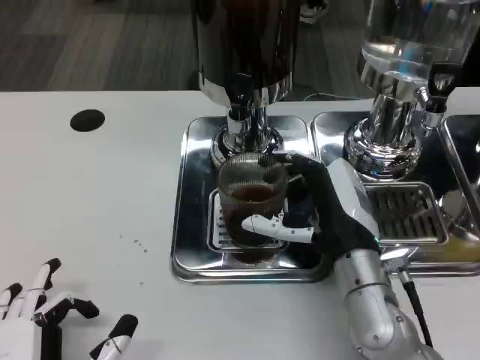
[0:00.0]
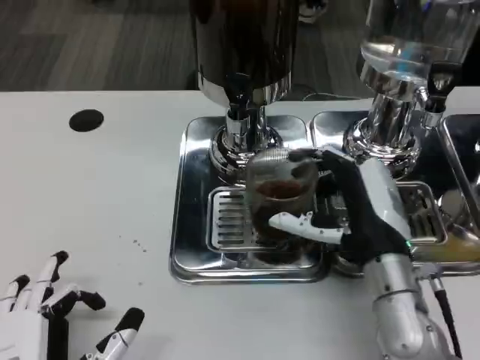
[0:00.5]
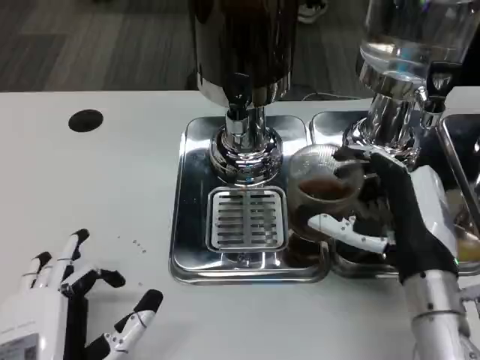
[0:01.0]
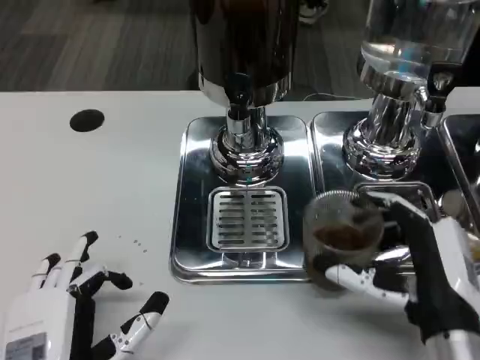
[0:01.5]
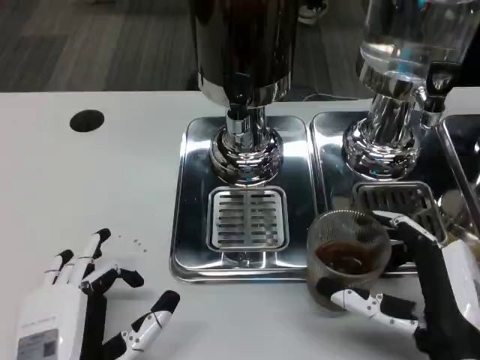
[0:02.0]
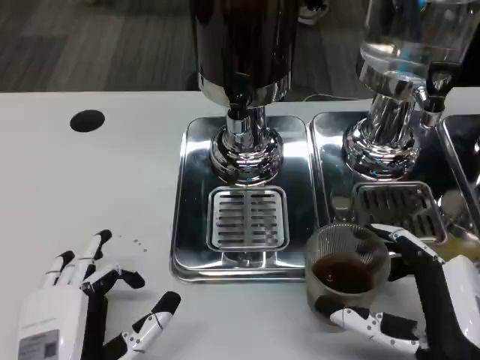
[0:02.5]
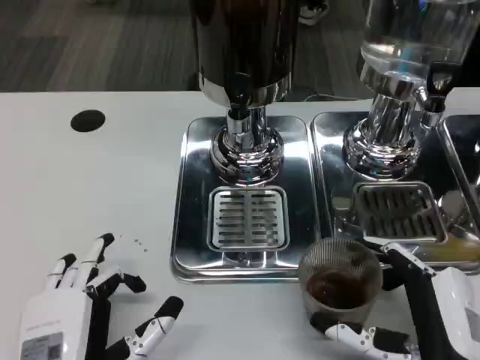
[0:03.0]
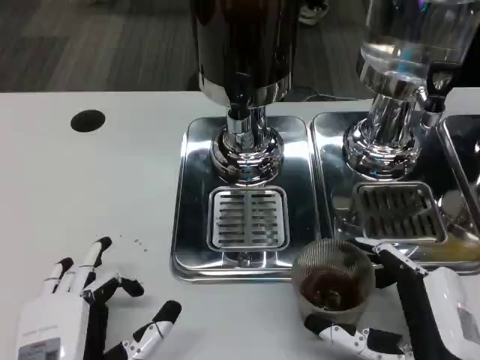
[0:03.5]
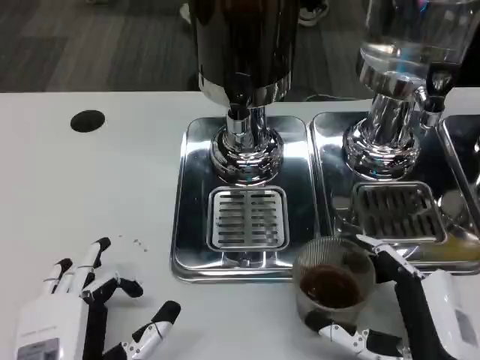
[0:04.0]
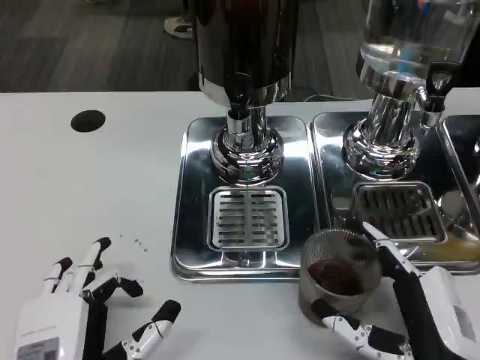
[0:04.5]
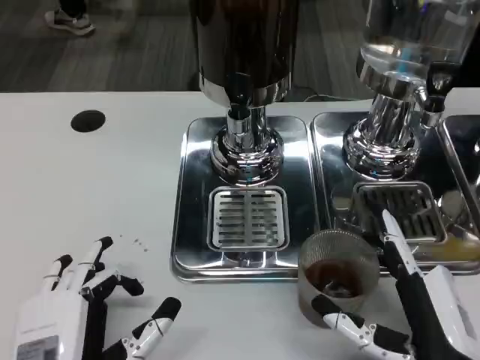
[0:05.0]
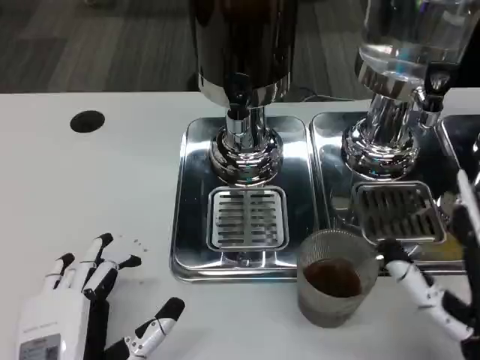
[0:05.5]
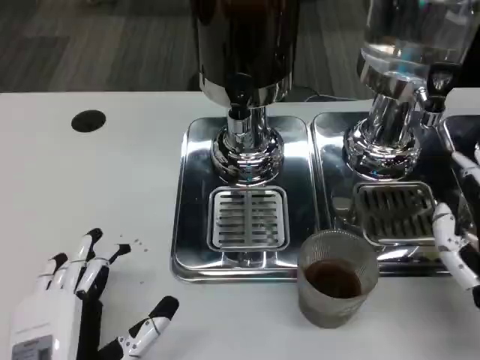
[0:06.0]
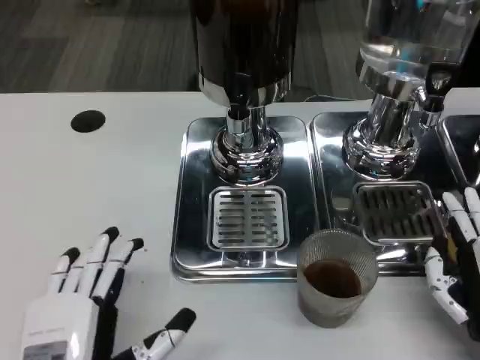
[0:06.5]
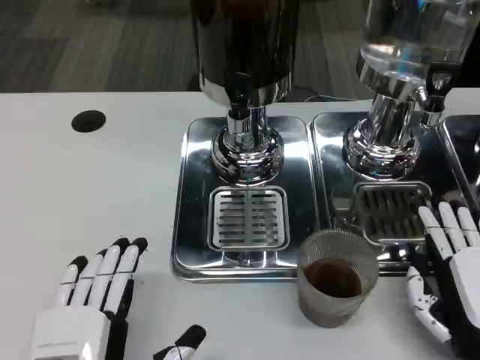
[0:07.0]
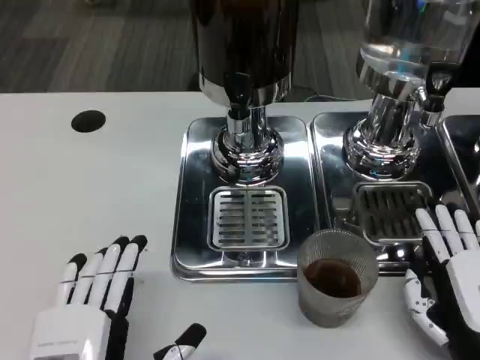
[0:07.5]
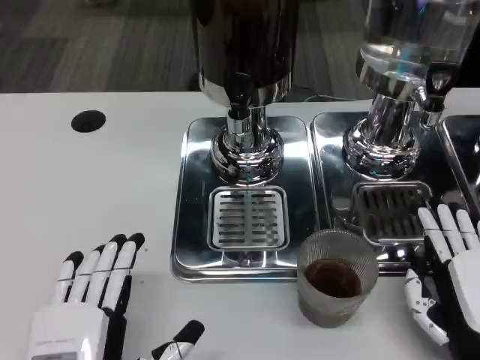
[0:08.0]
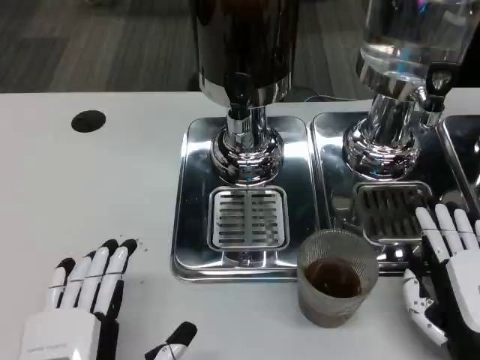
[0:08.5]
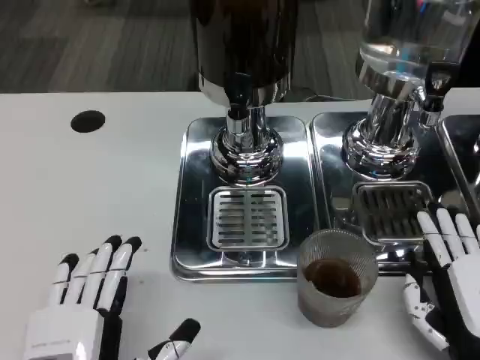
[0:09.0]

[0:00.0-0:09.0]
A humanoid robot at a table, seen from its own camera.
Task of the whole recording: Grasp the cup under the faucet to collect the drink, then remove the cup.
0:00.0 to 0:02.0: The right hand shifts roughly 15 cm backward and to the right.
0:02.0 to 0:04.5: The hands move only a little.
0:04.5 to 0:07.0: The right hand travels to the right by approximately 5 cm.
0:07.0 to 0:09.0: Both hands stay about where they are.

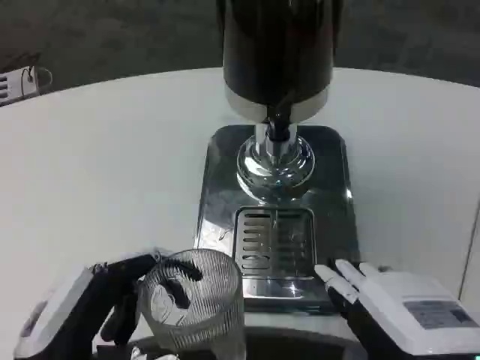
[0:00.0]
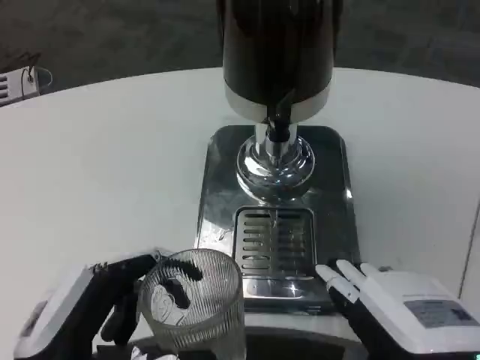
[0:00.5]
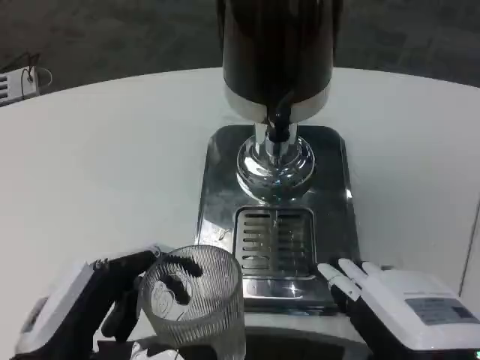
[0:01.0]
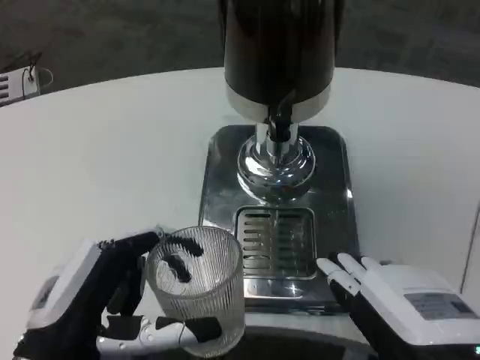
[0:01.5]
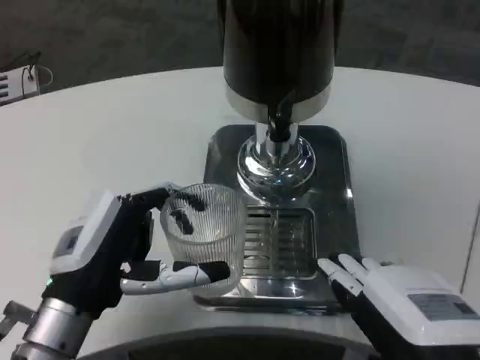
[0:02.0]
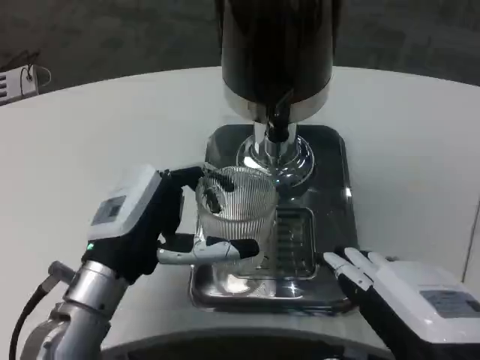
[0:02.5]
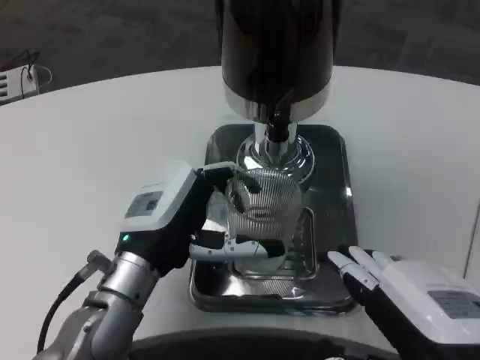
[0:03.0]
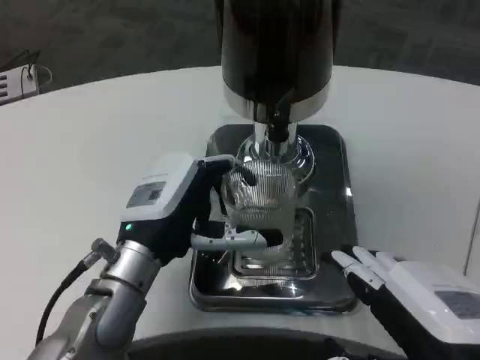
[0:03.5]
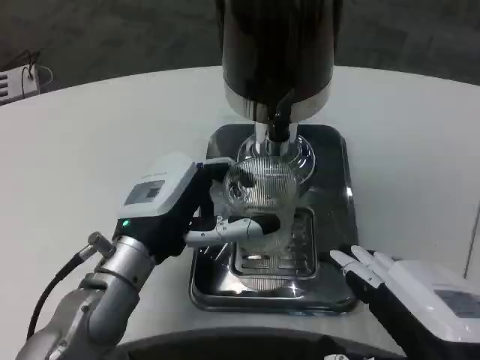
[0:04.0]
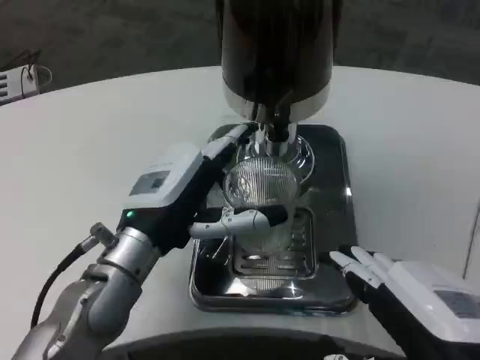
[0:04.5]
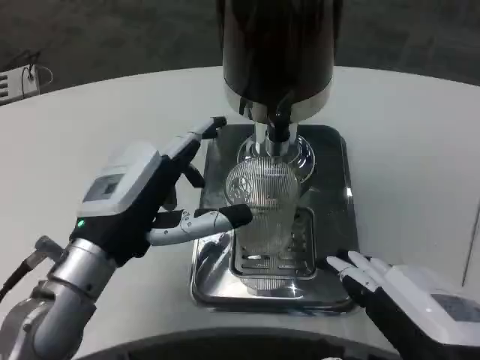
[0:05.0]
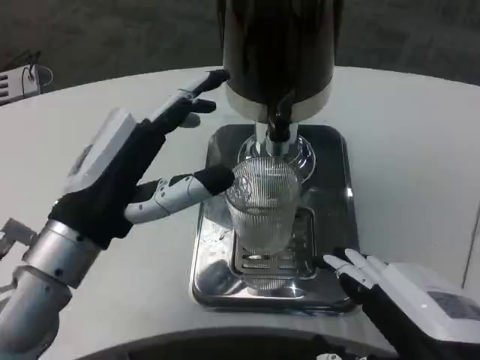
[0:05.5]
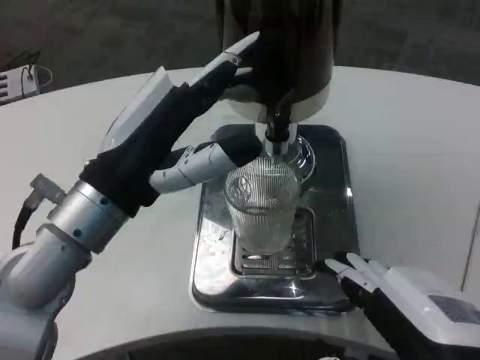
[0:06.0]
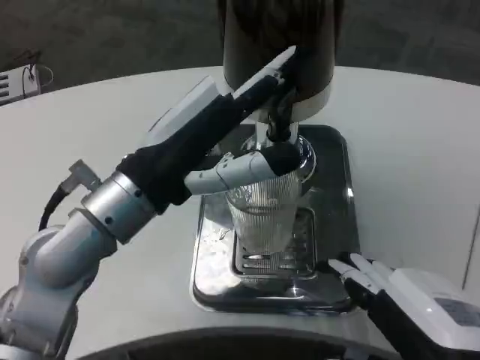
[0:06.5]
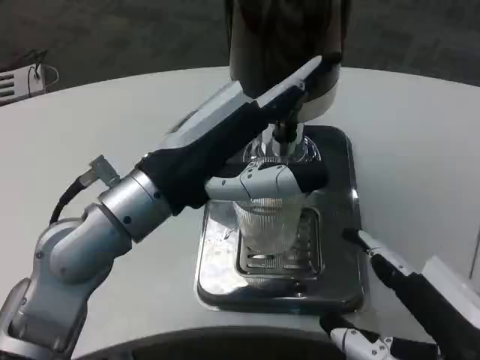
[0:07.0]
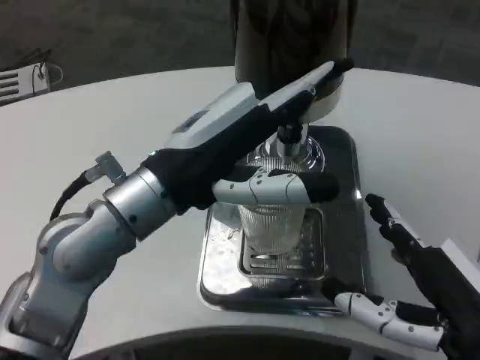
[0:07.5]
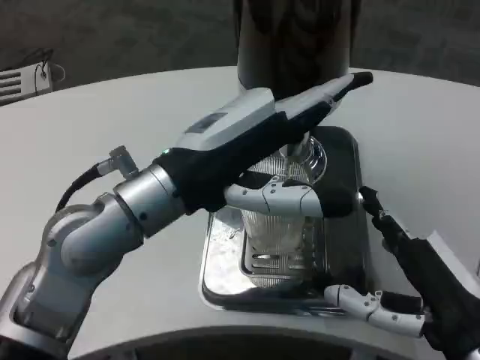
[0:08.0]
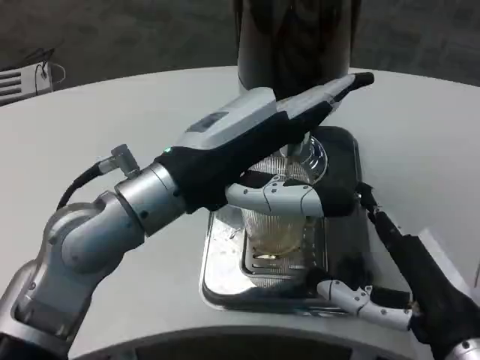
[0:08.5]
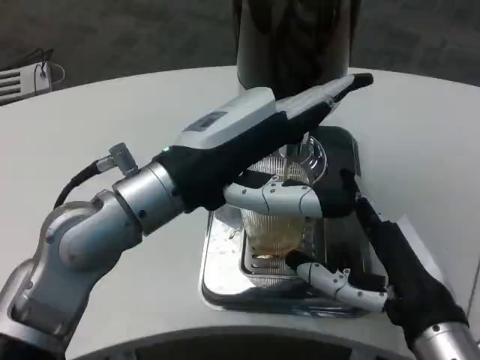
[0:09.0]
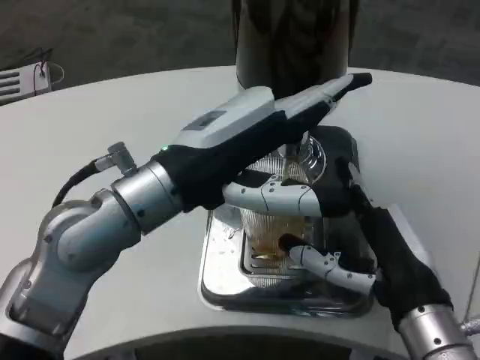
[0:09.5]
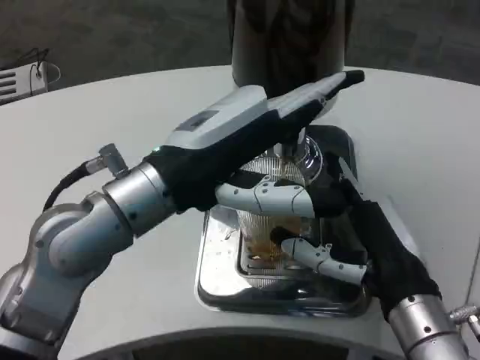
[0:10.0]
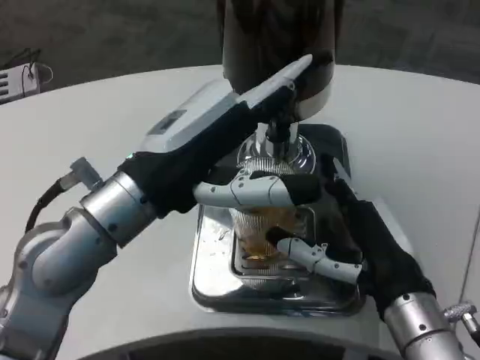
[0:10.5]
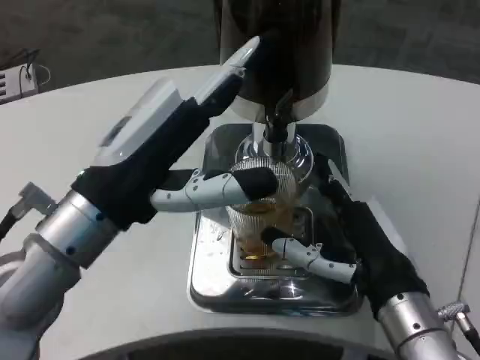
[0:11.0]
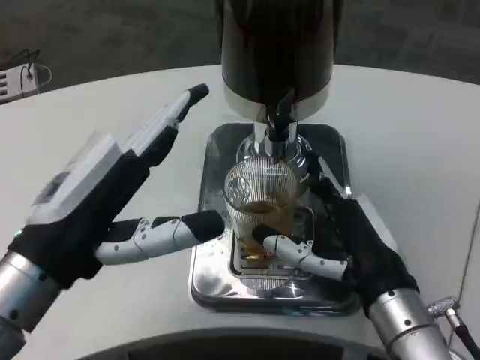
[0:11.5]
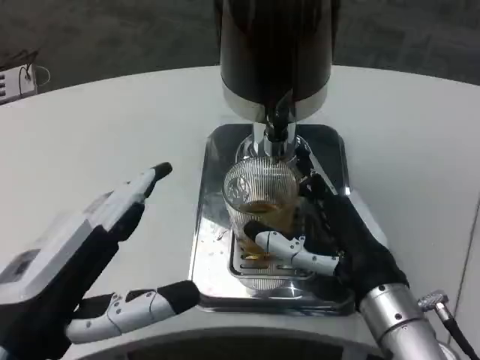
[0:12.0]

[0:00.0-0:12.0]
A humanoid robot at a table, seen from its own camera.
Task of the whole recording: Grasp the cup under the faucet to collect the drink, then remove the cup.
0:00.0 to 0:02.0: The left hand shifts roughly 10 cm forward.
0:02.0 to 0:04.0: The left hand is displaced forward by some 5 cm.
0:04.0 to 0:06.0: The left hand heads upward, covering some 10 cm.
0:06.0 to 0:08.0: The right hand shifts some 5 cm forward.
0:08.0 to 0:10.0: The right hand travels forward by some 5 cm.
0:10.0 to 0:12.0: The left hand heads backward, downward and to the left, covering roughly 15 cm.

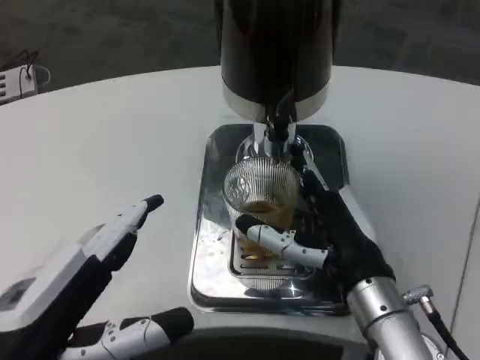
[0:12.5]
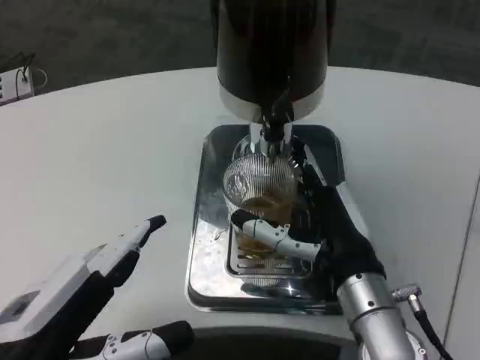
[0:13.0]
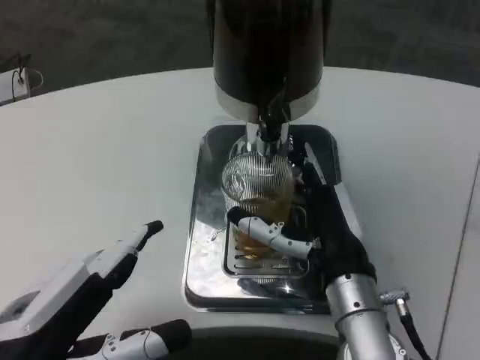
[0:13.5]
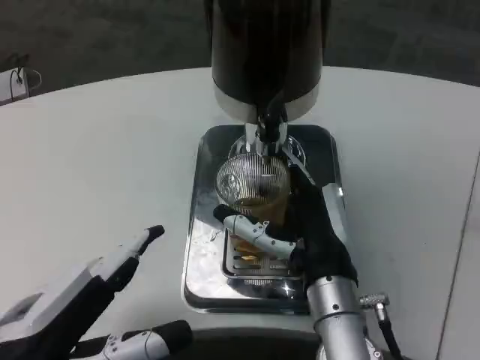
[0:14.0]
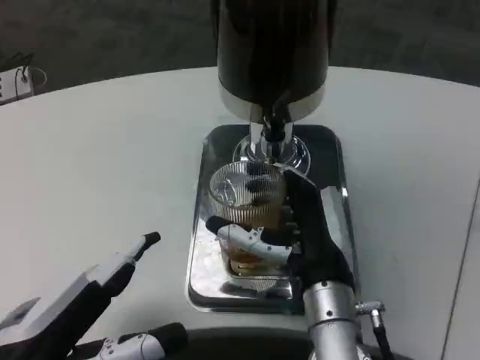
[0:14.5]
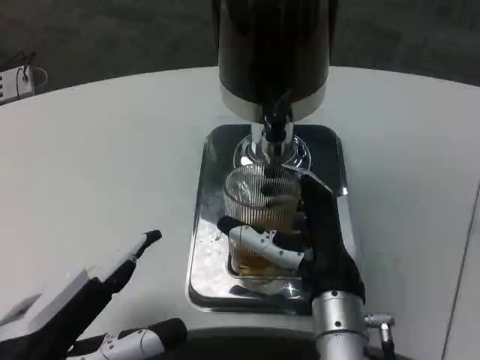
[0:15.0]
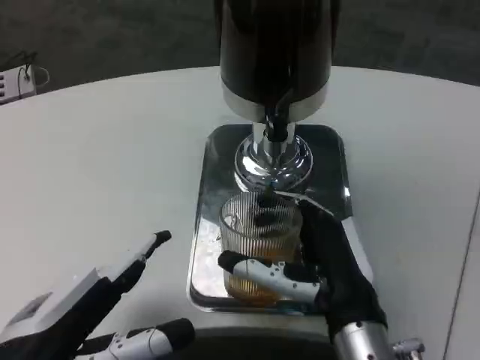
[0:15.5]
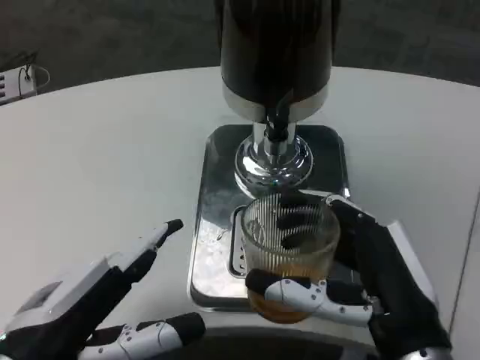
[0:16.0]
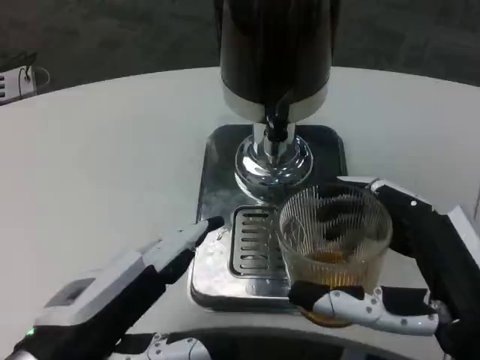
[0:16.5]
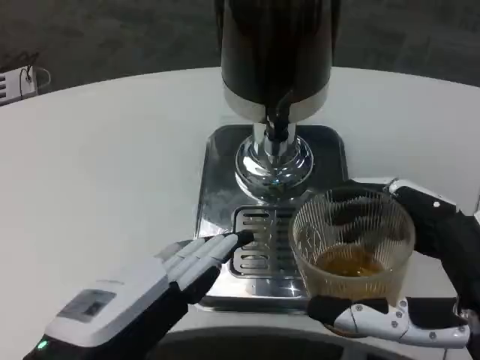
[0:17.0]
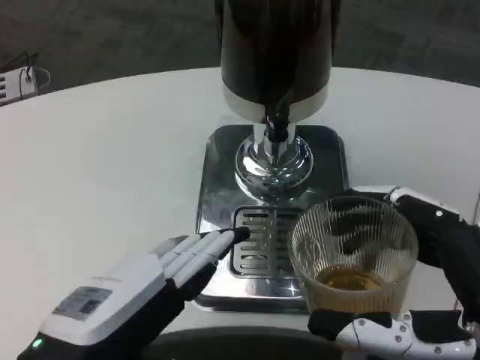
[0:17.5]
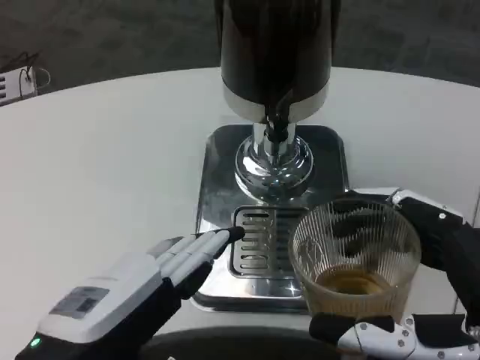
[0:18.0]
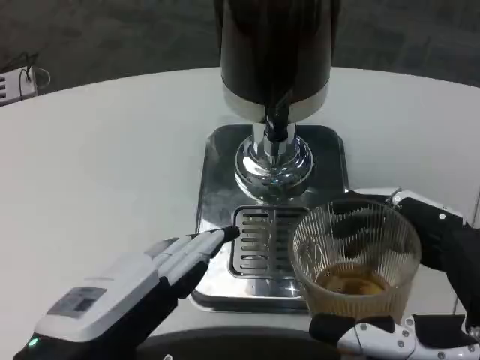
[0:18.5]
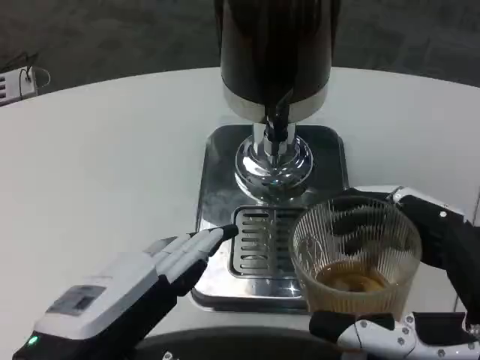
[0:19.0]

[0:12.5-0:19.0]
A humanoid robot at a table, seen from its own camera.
Task of the whole recording: Grasp the cup under the faucet to collect the drink, then remove the cup.
0:12.5 to 0:14.5: The right hand is displaced to the left by some 5 cm.
0:14.5 to 0:17.0: The right hand heads backward and to the right, covering some 20 cm.
0:17.0 to 0:19.0: The two hands keep their place.
